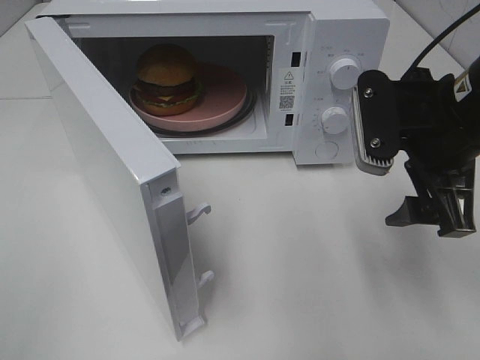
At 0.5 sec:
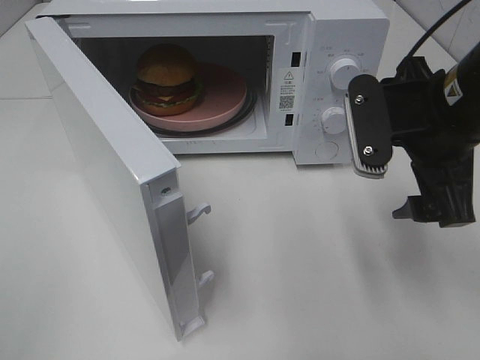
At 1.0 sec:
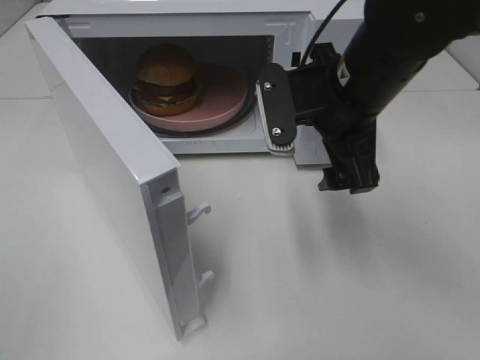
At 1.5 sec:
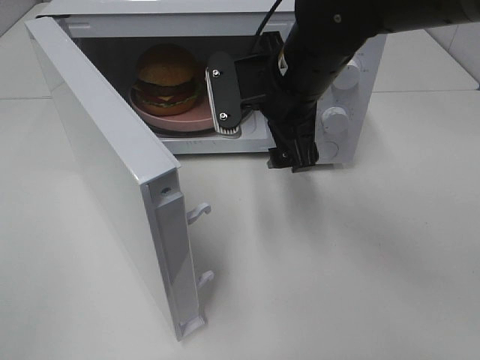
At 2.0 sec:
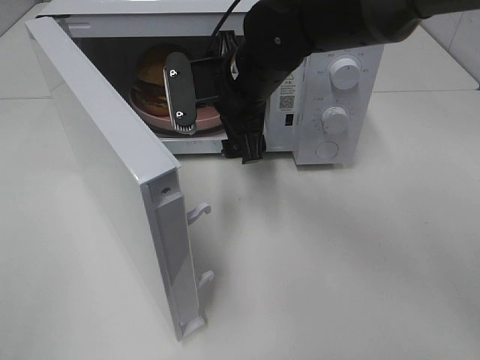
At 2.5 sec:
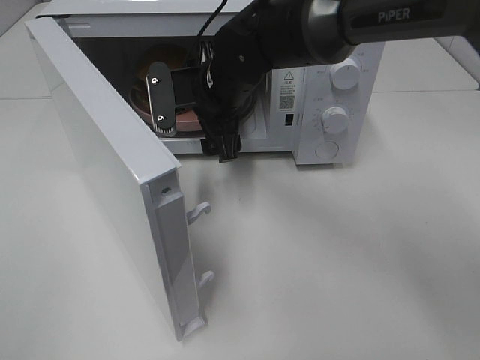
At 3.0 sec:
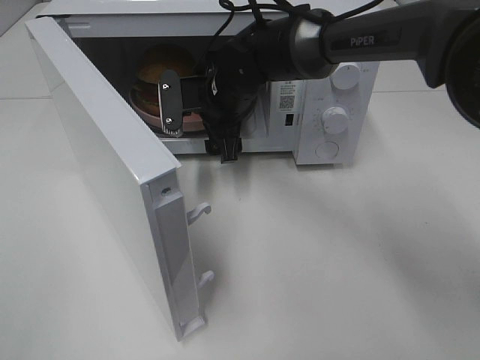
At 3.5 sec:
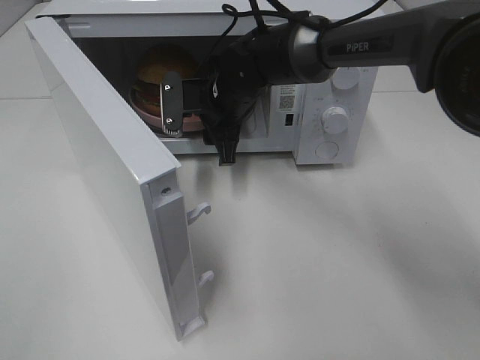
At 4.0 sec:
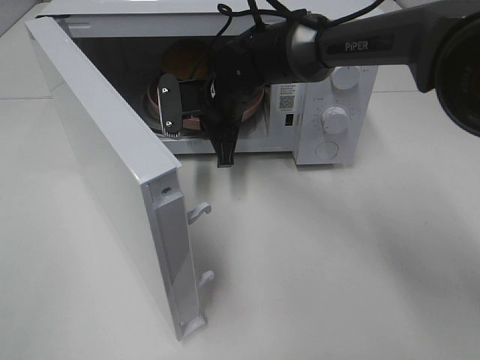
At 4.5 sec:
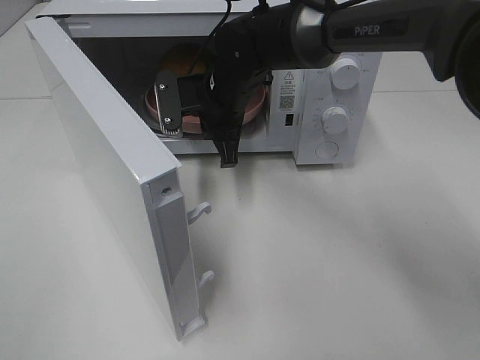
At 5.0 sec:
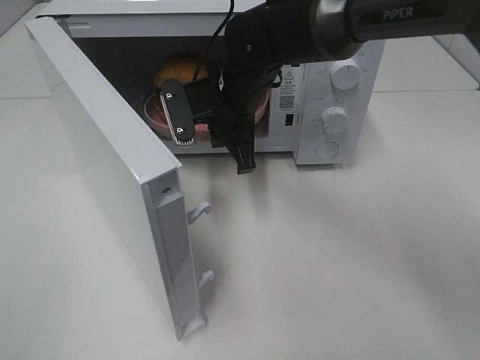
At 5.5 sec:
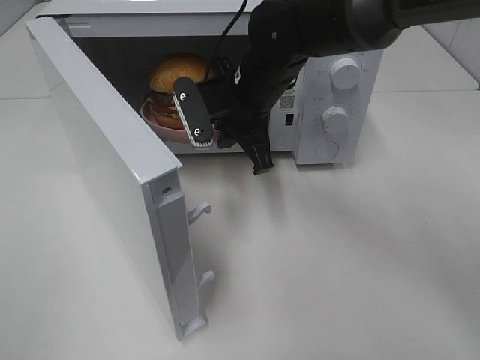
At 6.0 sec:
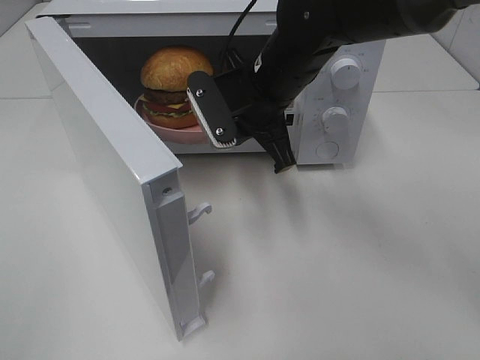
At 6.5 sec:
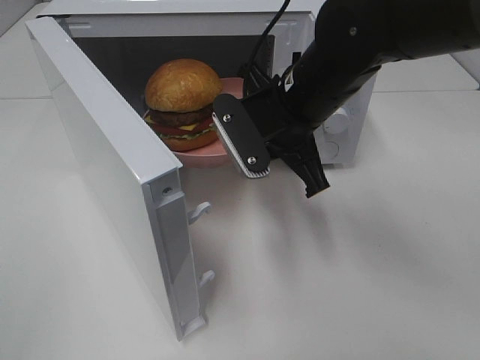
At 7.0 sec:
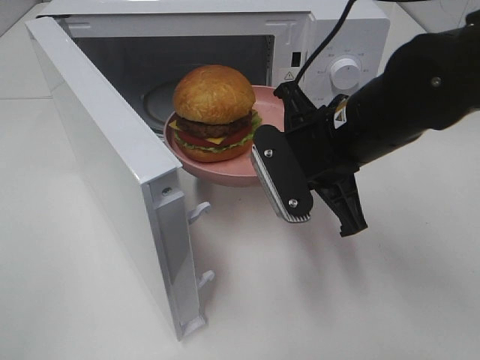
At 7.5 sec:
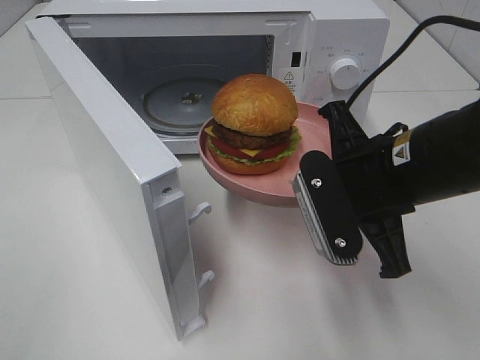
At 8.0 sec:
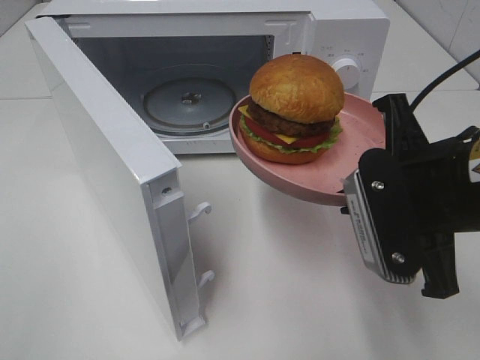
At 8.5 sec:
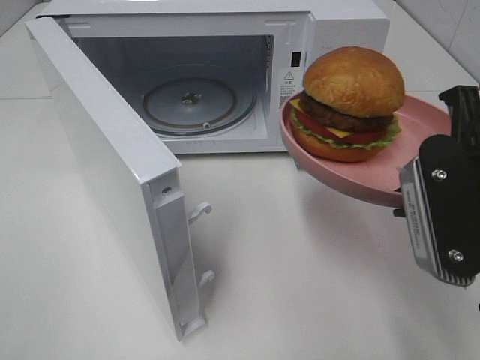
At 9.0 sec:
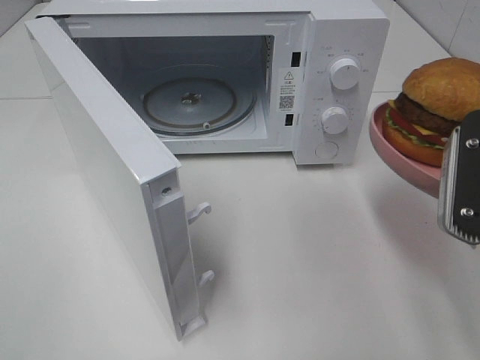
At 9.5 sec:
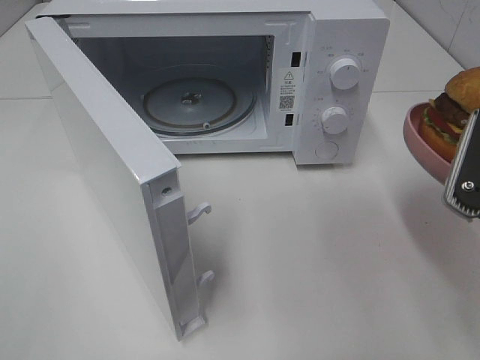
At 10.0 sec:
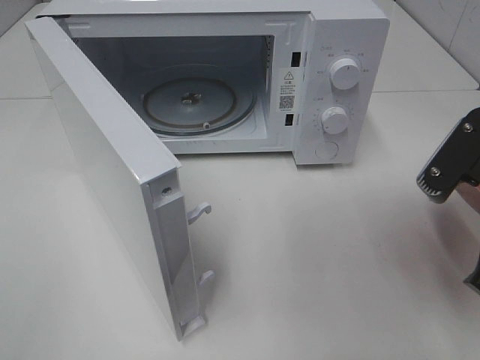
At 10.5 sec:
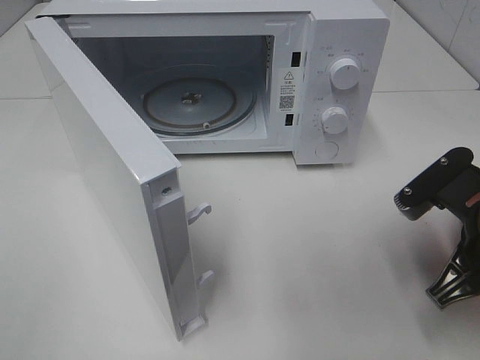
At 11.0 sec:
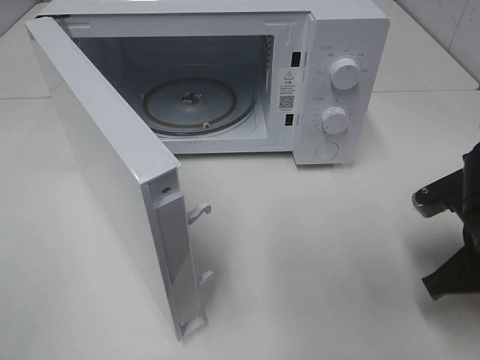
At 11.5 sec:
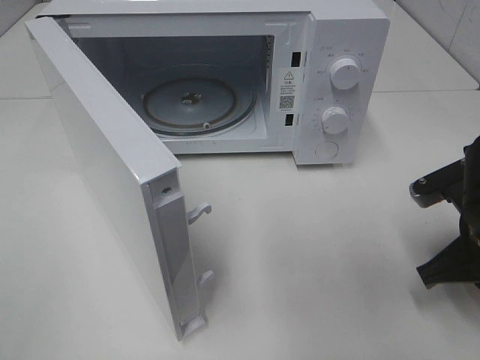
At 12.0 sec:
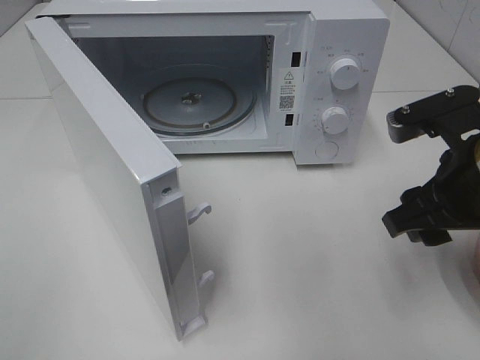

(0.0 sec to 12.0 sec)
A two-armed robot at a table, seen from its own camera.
Task of the whole recording: Heat the burger.
Step, 0.0 sec - 3.5 sec: Right hand: grab the plate with the hamburger.
Step, 4.0 sec - 11.5 sec: Right hand: place the plate on the table.
0.0 sec - 2.0 sec: The right gripper shifts some 20 cm to the left and forward.
2.0 sec - 4.0 sec: The right gripper travels forward and downward by roughly 10 cm, and closes up.
4.0 sec - 6.0 sec: The right gripper shifts approximately 10 cm backward, upward and to the right.
6.0 sec - 8.0 sec: The right gripper travels backward and to the right by about 20 cm.
8.0 sec - 10.0 sec: The right gripper shifts about 5 cm to the right.
10.0 sec - 12.0 sec: The right gripper reaches roughly 10 cm downward, then returns, and opens up.

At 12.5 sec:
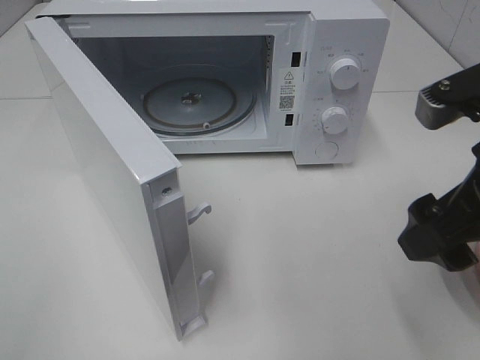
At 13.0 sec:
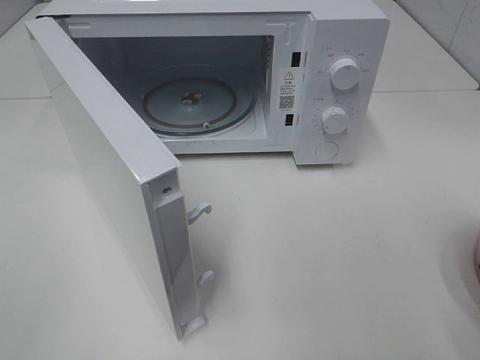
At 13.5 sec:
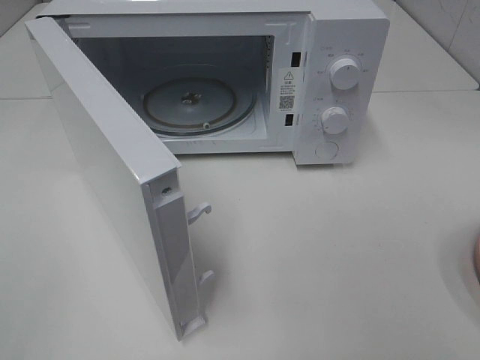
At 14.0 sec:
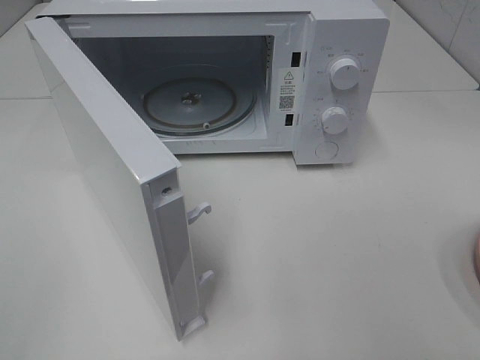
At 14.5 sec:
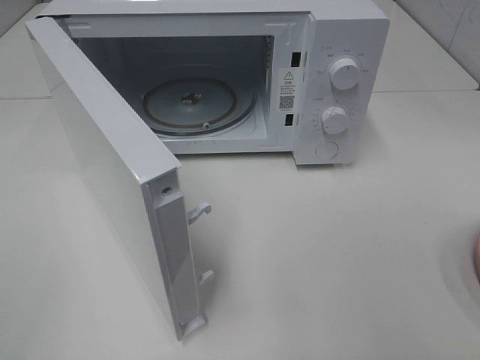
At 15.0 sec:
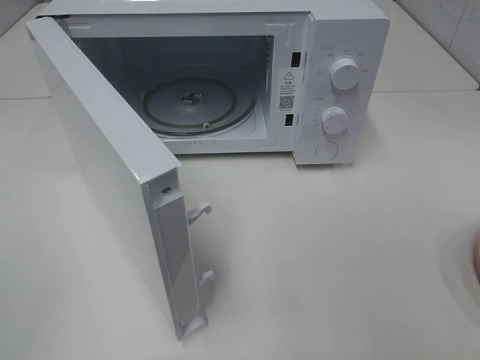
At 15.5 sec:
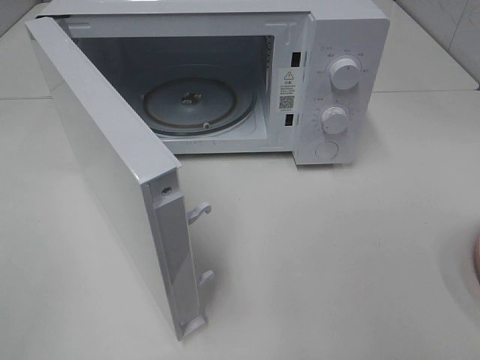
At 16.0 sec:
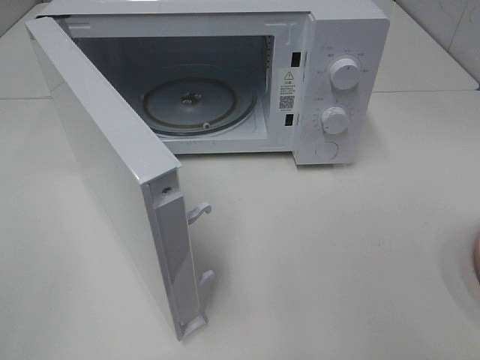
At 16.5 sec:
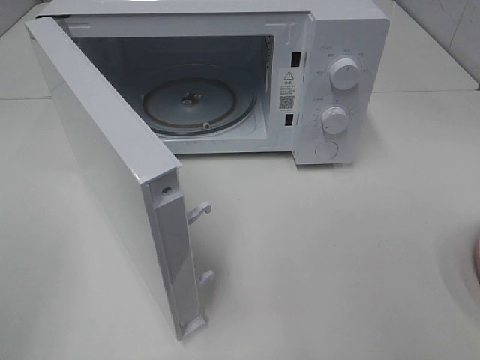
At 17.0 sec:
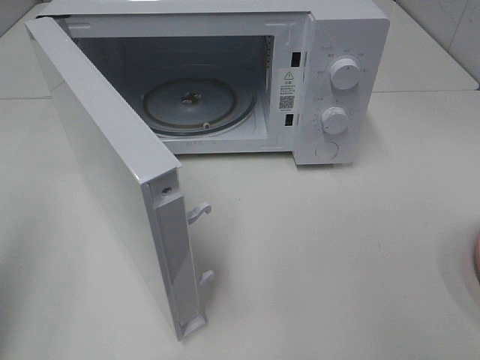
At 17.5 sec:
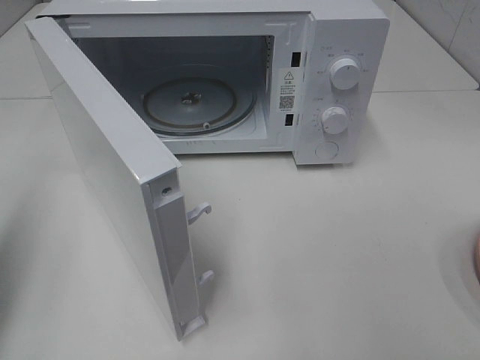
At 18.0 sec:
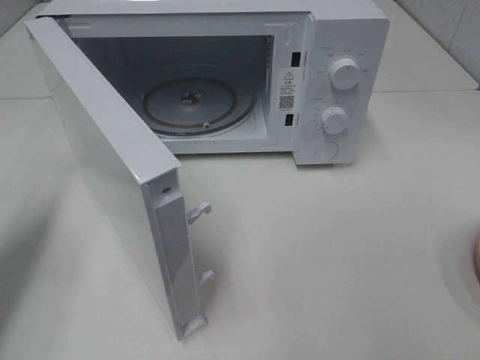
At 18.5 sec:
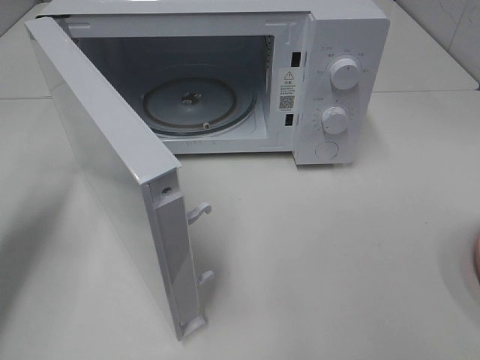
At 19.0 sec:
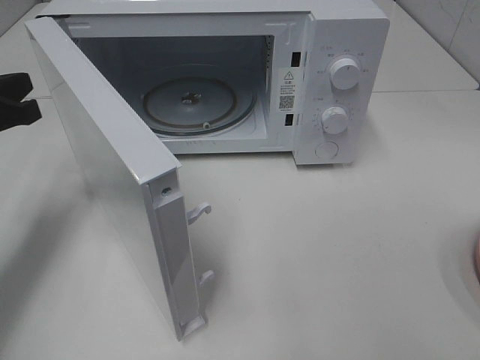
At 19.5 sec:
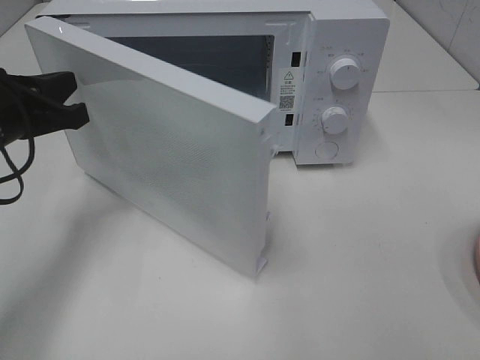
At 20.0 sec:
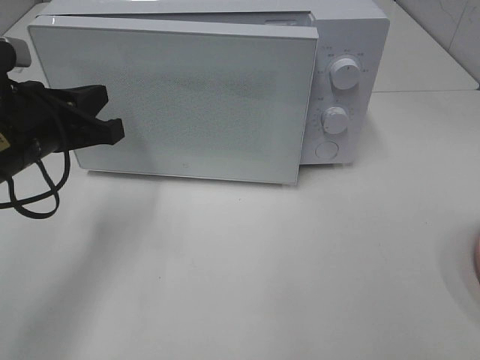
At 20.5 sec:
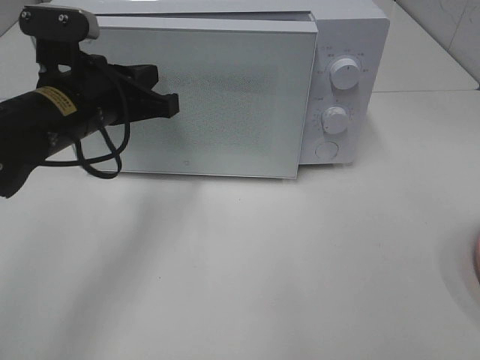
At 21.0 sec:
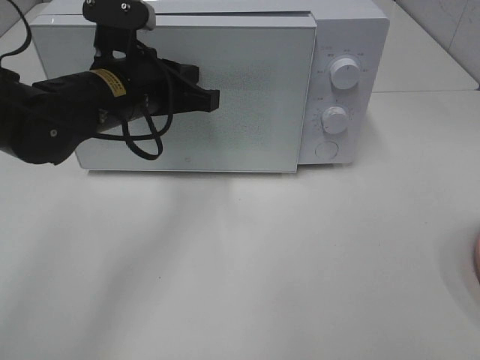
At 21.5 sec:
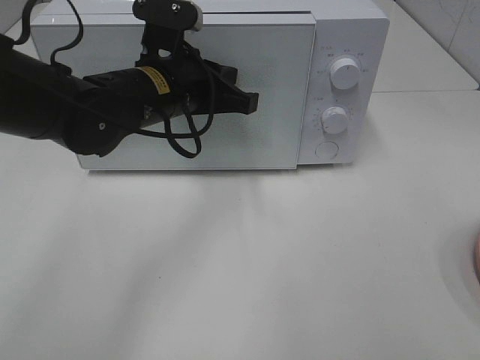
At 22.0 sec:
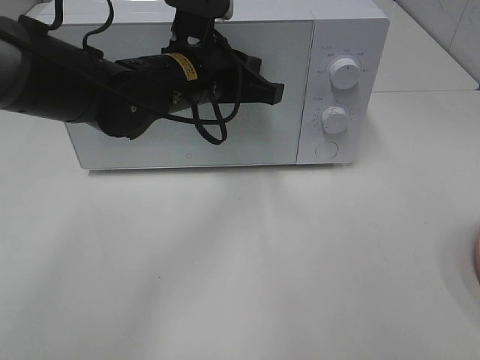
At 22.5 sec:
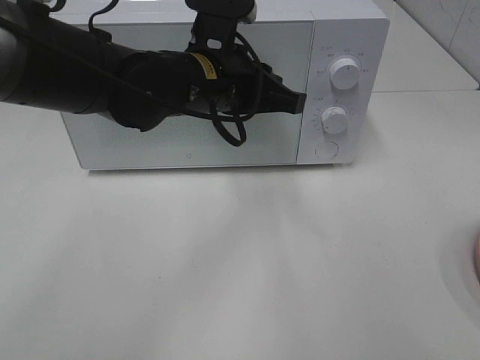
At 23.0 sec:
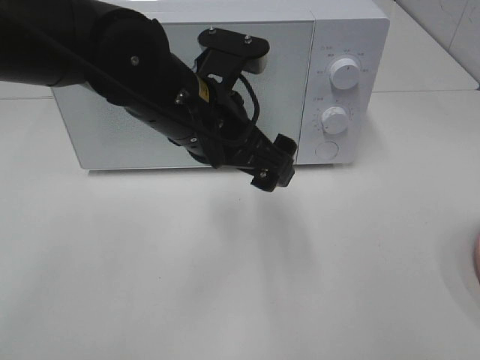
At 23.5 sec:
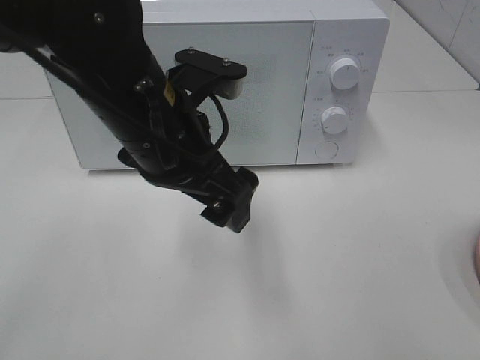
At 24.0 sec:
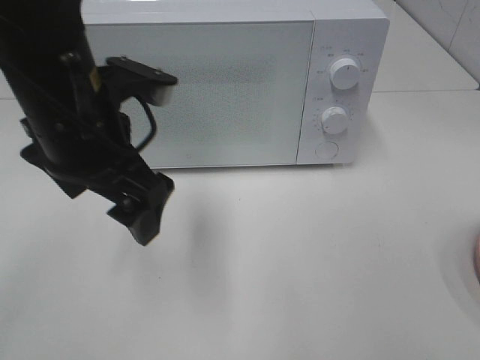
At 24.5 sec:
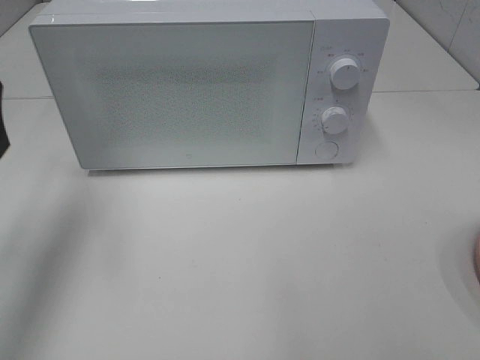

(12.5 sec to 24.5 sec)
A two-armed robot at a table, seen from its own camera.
Task of the whole recording: Heat the burger.
Step, 12.5 sec - 21.5 sec: Left hand: close the microwave door.
12.5 sec - 14.5 sec: The right gripper goes some 20 cm backward and to the right.
16.5 sec - 18.5 sec: The left gripper moves forward and downward, approximately 25 cm, and closes up.
18.5 sec - 20.5 sec: The left gripper moves to the right, about 15 cm.
20.5 sec - 22.5 sec: The left gripper is displaced to the right by some 15 cm.
22.5 sec - 24.5 sec: The left gripper heads to the left, covering approximately 25 cm, and opens.

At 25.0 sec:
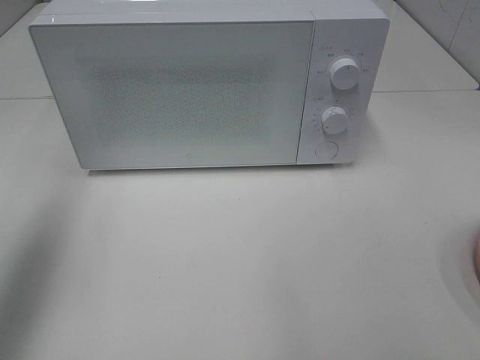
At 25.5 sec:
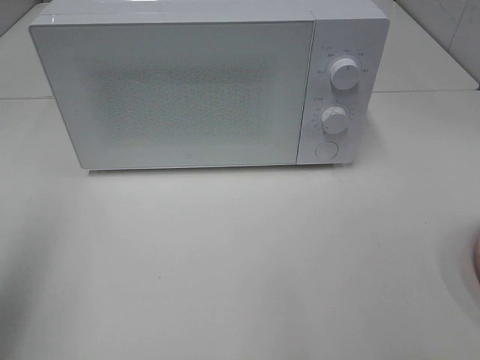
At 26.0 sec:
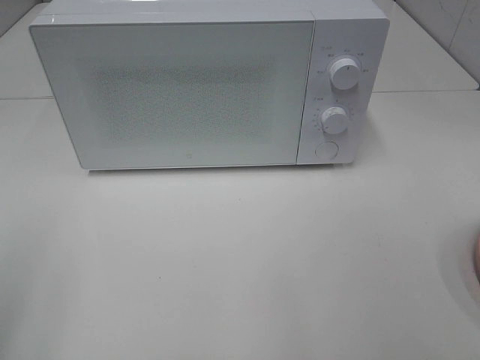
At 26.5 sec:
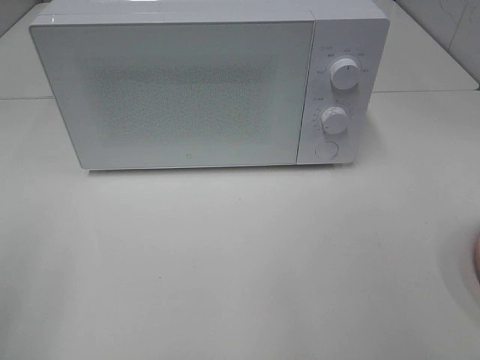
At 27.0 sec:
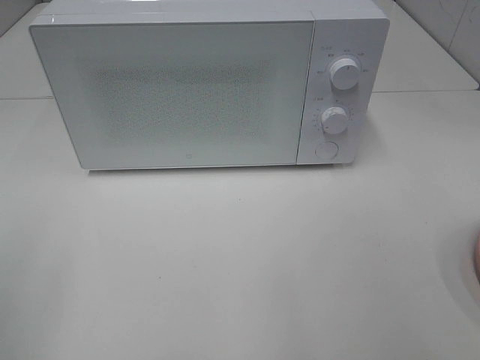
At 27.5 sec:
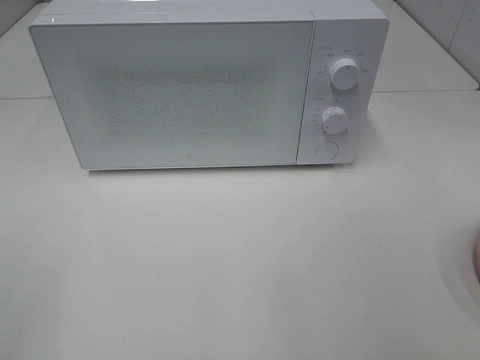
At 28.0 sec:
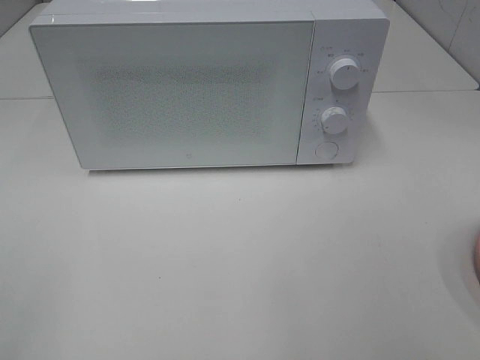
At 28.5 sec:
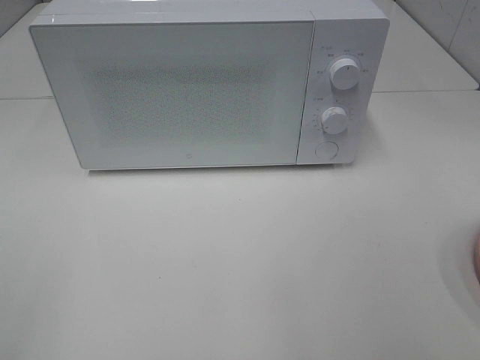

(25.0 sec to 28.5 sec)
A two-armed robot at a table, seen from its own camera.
Task of the whole recording: Heat the burger.
25.0 sec - 27.0 sec: The left gripper shifts some 20 cm backward and downward.
